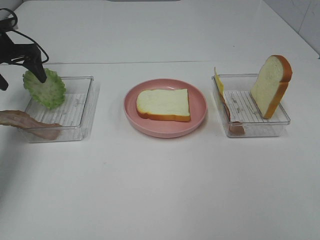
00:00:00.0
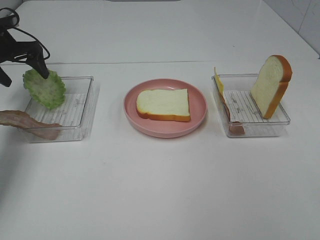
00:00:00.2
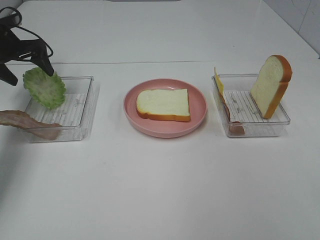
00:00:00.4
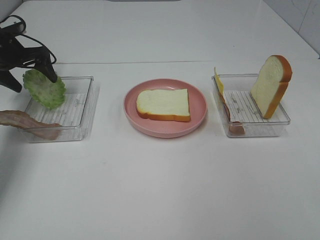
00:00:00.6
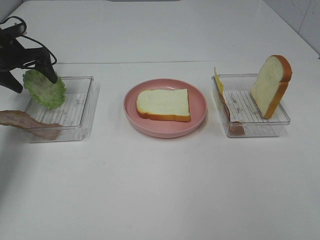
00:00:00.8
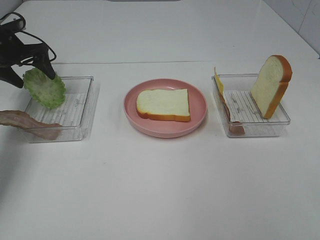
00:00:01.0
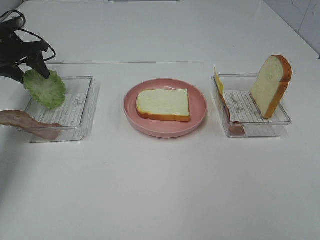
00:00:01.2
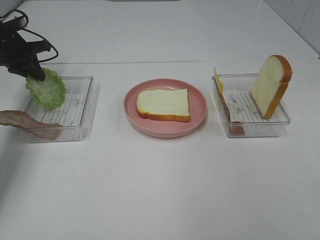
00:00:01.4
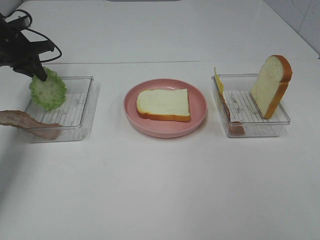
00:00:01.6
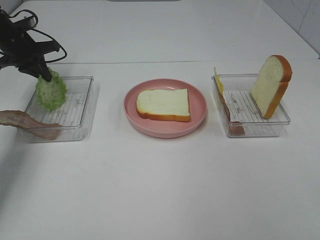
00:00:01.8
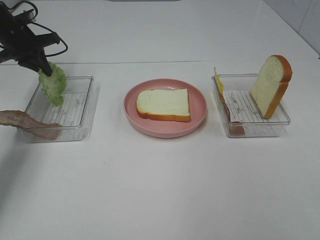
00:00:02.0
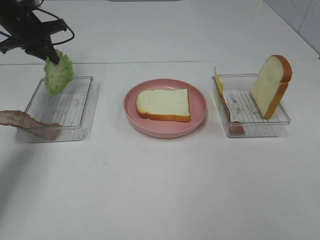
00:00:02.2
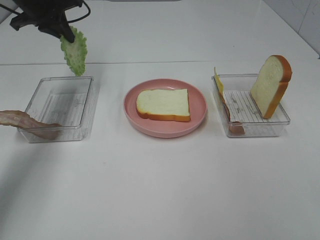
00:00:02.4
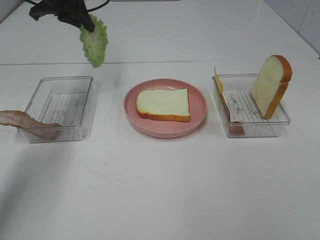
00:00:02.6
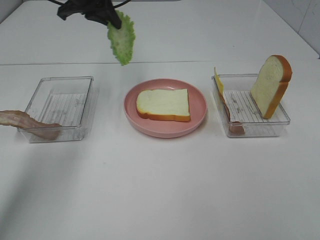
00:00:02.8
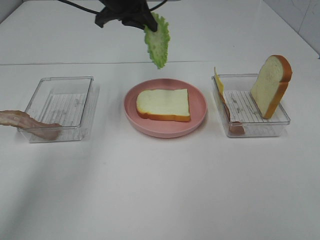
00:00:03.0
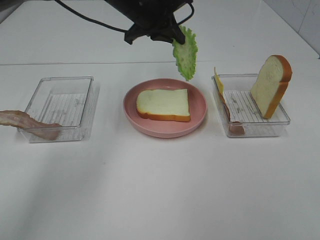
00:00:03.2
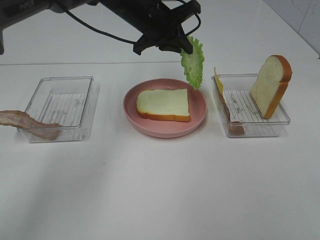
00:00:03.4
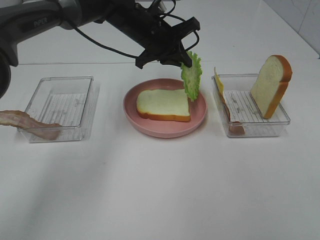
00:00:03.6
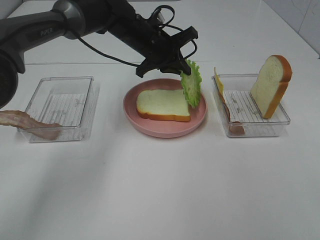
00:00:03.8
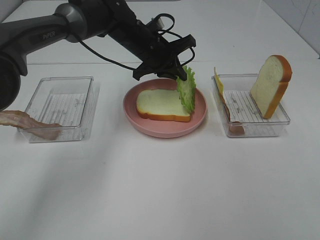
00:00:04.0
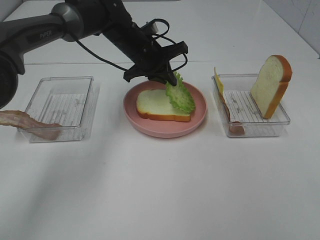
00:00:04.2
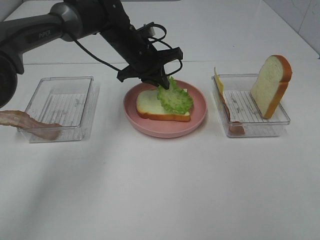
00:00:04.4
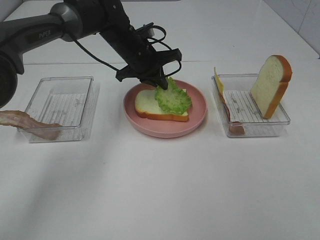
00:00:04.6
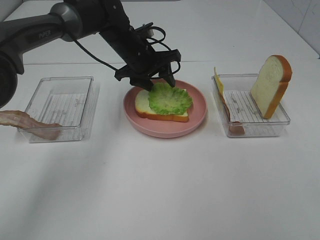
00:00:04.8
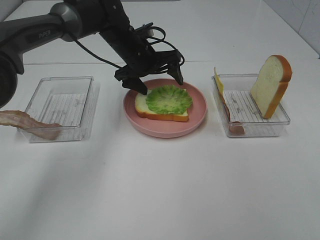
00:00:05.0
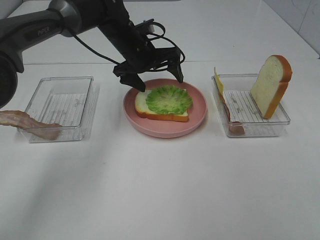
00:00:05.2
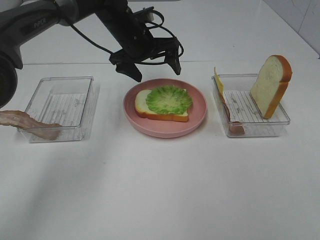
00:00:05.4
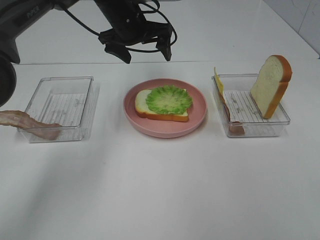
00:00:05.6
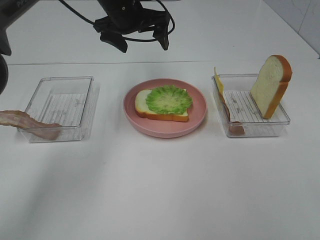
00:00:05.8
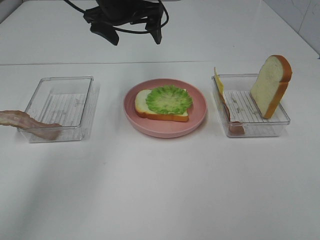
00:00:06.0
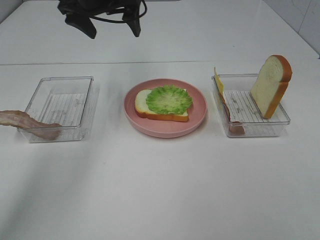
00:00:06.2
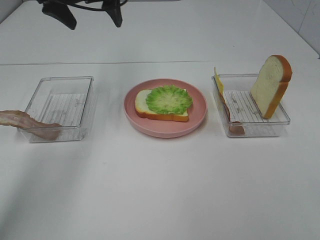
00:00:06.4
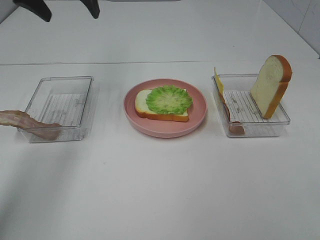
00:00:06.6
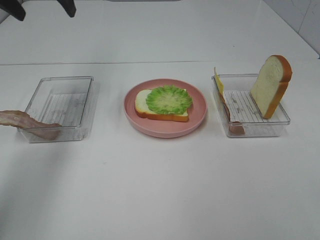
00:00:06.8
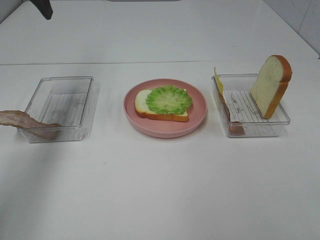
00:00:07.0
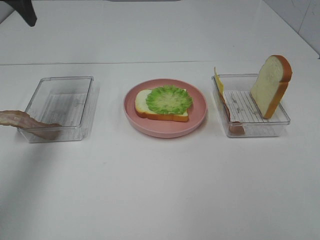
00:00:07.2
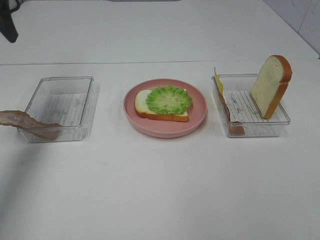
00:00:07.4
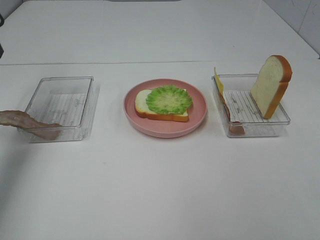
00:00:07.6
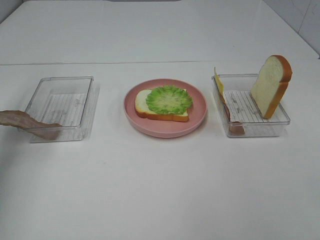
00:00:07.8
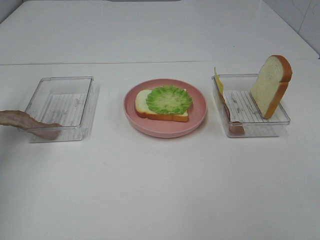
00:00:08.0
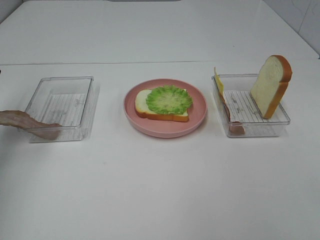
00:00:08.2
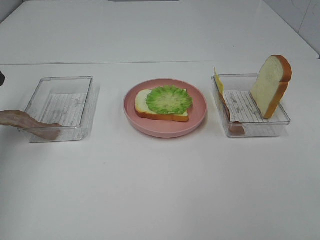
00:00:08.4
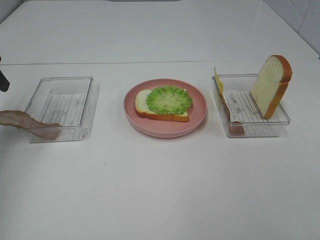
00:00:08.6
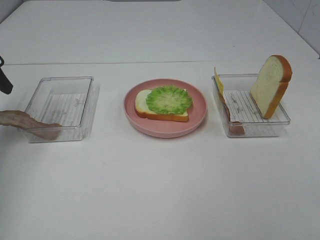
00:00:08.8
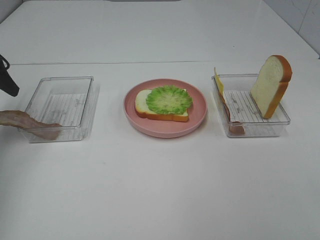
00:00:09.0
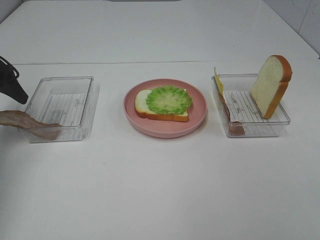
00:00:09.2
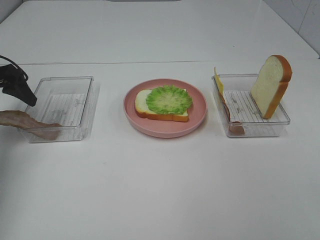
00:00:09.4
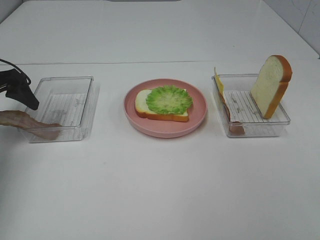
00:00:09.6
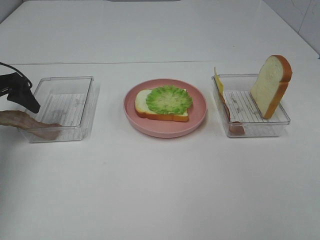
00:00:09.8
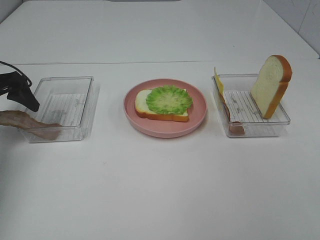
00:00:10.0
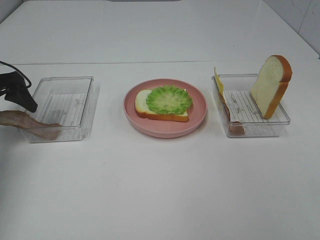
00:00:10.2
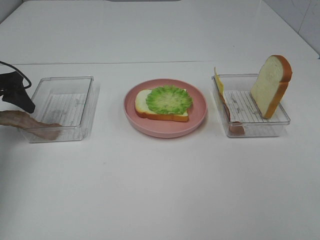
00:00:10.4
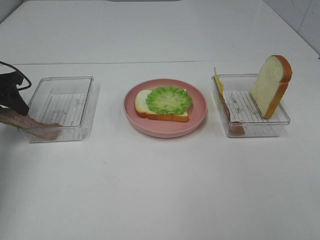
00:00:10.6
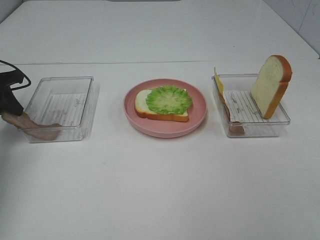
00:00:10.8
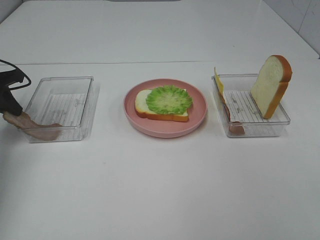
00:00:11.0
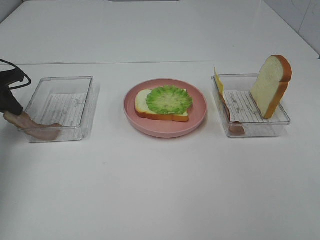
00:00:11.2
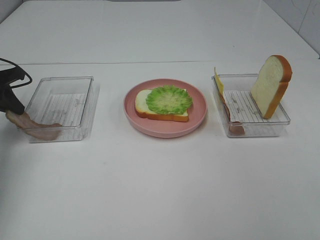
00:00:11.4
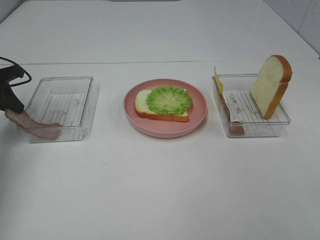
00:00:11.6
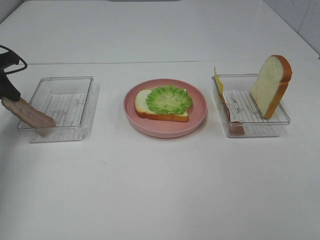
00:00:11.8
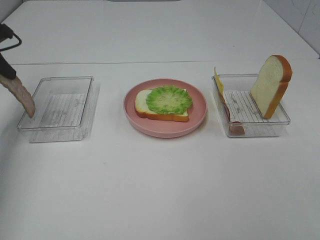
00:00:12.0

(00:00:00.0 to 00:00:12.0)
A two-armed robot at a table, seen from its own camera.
Task of the whole recording: Make sandwiches.
Step, 00:00:01.8 - 00:00:05.0: Left hand:place the lettuce slice on the bread slice.
Step, 00:00:05.2 - 00:00:11.6: Left hand:grab the bacon.
00:00:00.0 - 00:00:01.6: The left gripper closes its fingers.
00:00:01.6 - 00:00:03.0: The left gripper moves to the right and upward, some 25 cm.
00:00:03.0 - 00:00:04.4: The left gripper goes roughly 10 cm downward.
00:00:04.4 - 00:00:06.0: The left gripper moves upward, about 10 cm, and opens its fingers.
00:00:06.0 - 00:00:07.6: The left gripper heads to the left and backward, covering roughly 30 cm.
00:00:07.6 - 00:00:09.0: The left gripper shifts roughly 10 cm downward.
00:00:09.0 - 00:00:10.4: The left gripper ends up approximately 5 cm from where it was.
00:00:10.4 - 00:00:12.0: The left gripper goes roughly 10 cm upward, and closes.

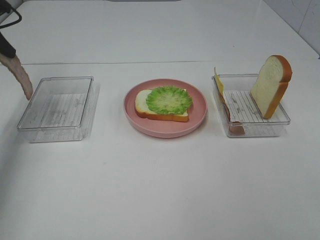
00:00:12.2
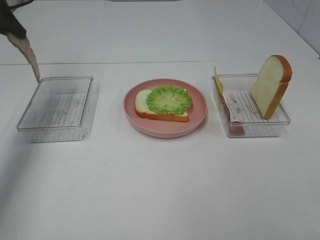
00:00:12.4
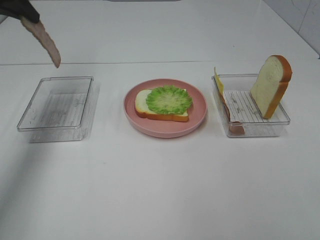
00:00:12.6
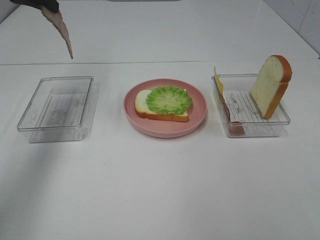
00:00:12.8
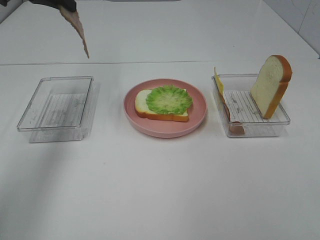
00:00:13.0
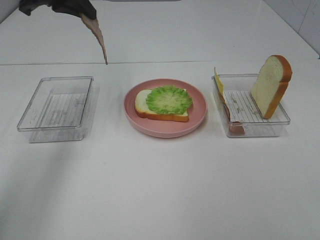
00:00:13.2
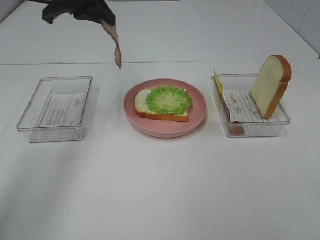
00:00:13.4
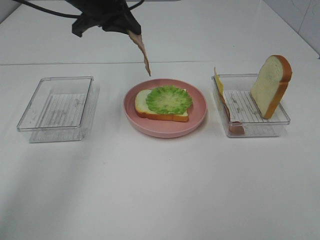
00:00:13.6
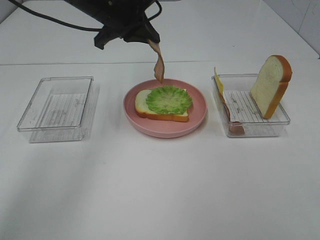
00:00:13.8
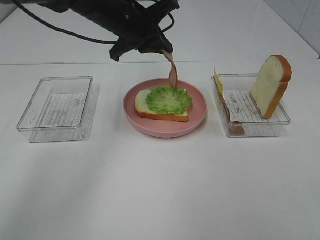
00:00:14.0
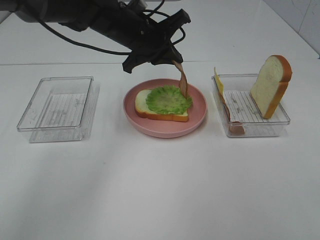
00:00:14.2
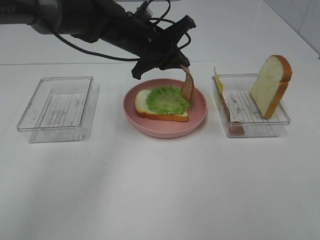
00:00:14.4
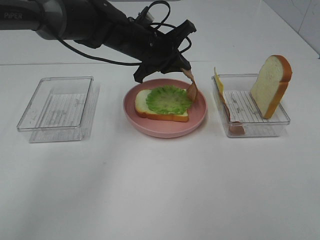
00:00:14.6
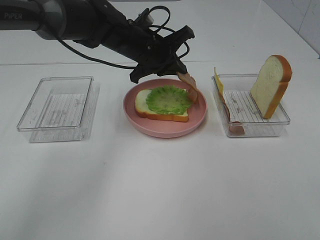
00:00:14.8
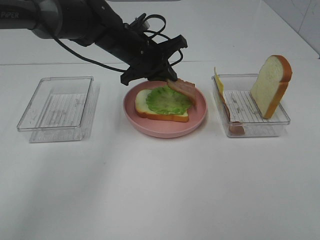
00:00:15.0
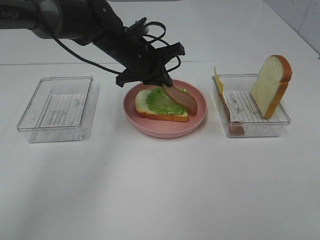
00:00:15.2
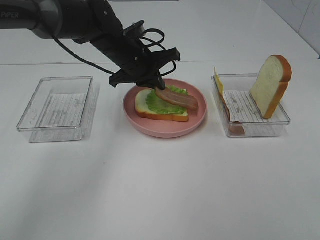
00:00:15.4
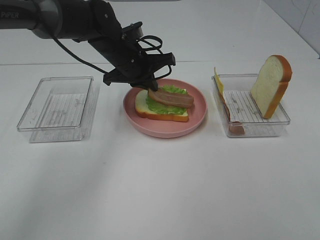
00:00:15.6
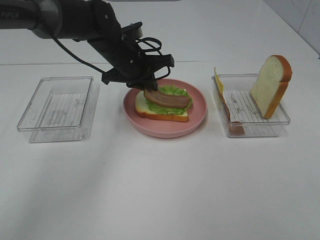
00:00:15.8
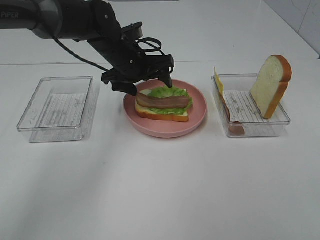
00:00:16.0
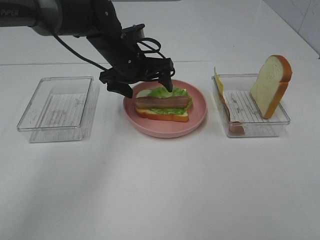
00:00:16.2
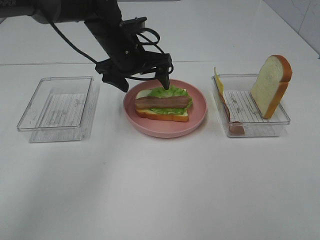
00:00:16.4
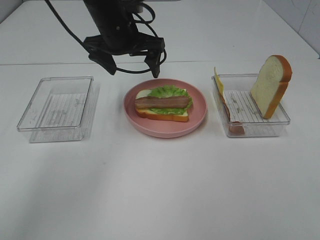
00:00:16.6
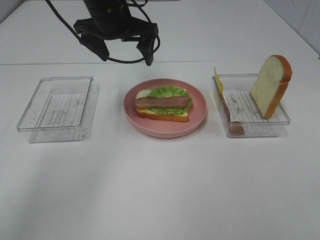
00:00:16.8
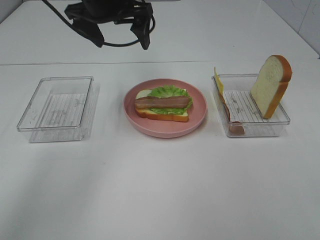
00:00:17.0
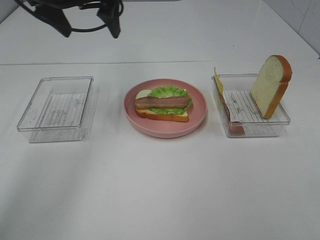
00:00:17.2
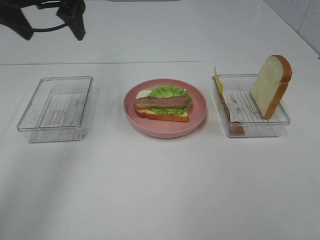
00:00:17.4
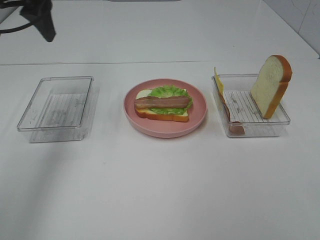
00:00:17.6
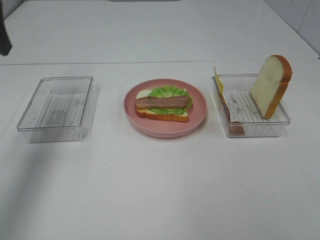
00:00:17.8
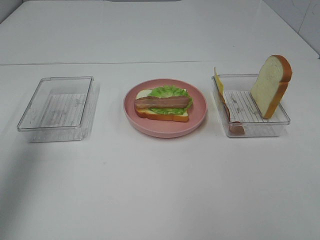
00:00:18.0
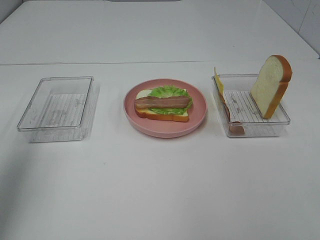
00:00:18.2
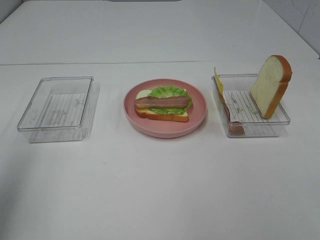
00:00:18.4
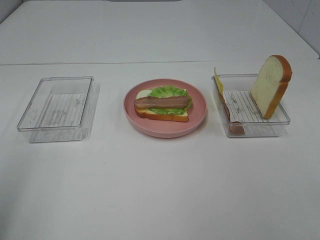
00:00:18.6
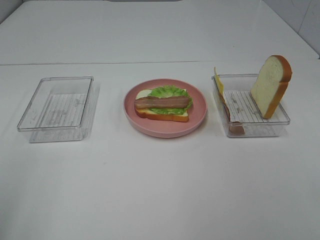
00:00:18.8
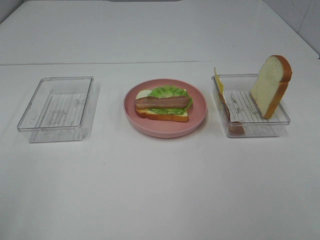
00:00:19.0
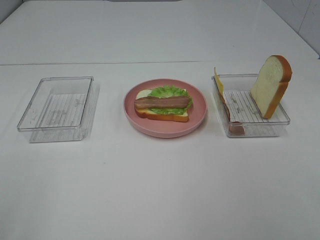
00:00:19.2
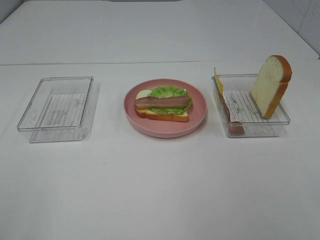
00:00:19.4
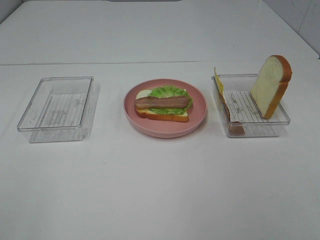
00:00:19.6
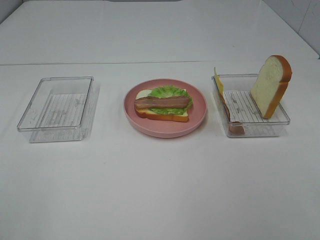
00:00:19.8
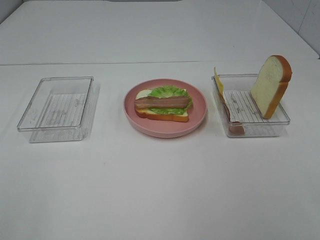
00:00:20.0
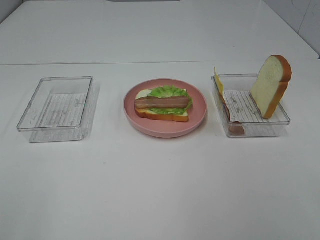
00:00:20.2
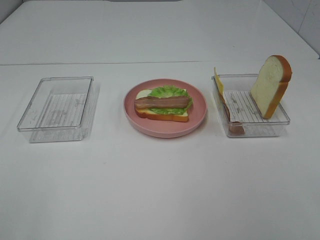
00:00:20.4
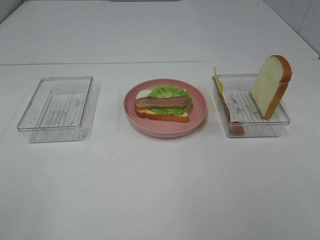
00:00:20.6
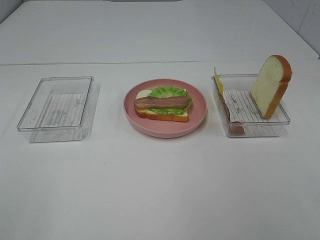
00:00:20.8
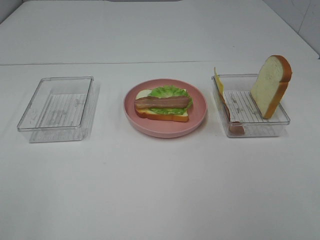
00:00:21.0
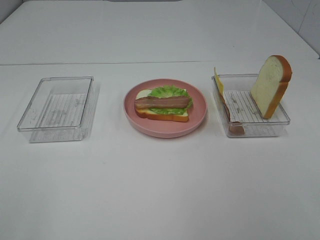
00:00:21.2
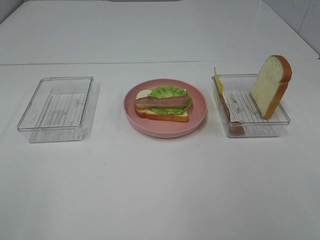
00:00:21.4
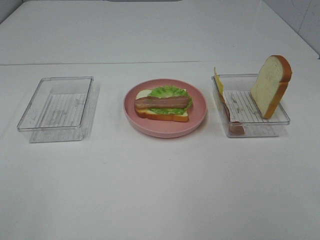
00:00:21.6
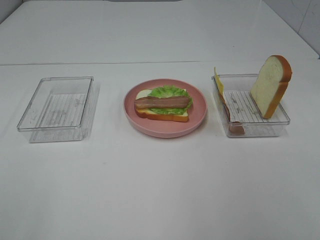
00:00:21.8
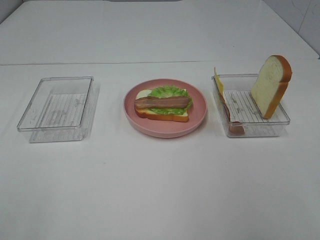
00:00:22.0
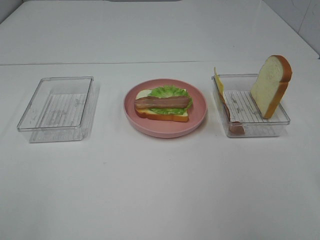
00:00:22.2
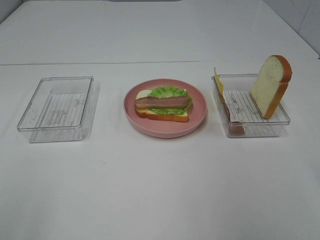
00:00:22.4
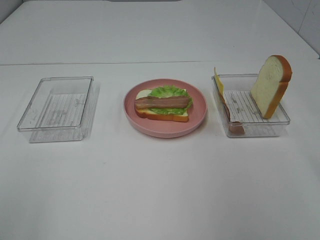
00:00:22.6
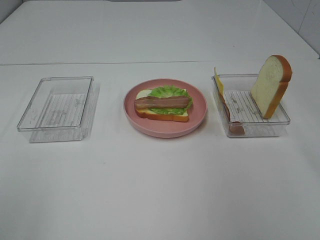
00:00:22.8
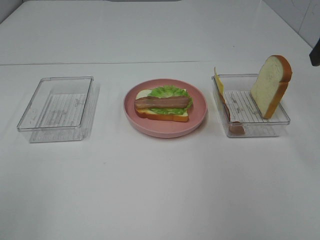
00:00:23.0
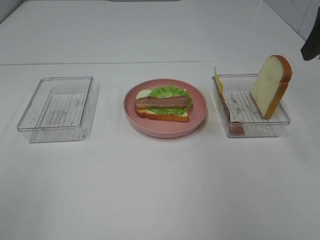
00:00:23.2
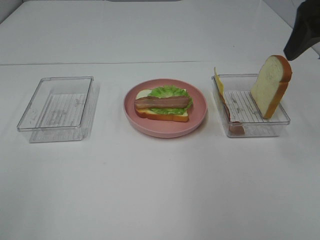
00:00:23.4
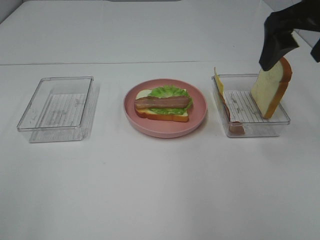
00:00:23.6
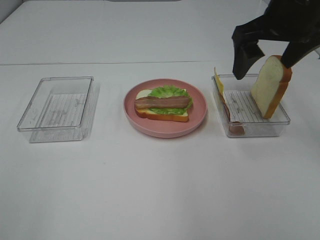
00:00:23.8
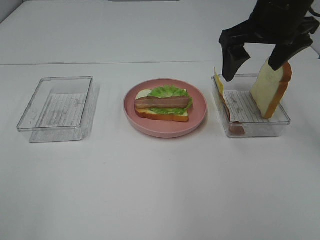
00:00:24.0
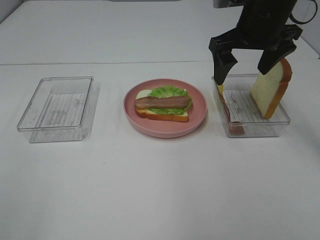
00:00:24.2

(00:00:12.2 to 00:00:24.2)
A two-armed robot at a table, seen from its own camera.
Task of the whole recording: Make sandwiches.
Step, 00:00:12.2 - 00:00:16.0: Left hand:place bacon on lettuce slice.
00:00:12.2 - 00:00:13.8: The left gripper goes roughly 25 cm to the right.
00:00:13.8 - 00:00:15.2: The left gripper is displaced downward by about 10 cm.
00:00:15.2 - 00:00:16.6: The left gripper moves upward, roughly 5 cm, and opens.
00:00:16.6 - 00:00:18.2: The left gripper shifts about 35 cm to the left, backward and upward.
00:00:18.2 - 00:00:19.8: The left gripper is displaced backward by some 20 cm.
00:00:19.8 - 00:00:21.2: Neither gripper changes place.
00:00:22.6 - 00:00:24.2: The right gripper shifts roughly 20 cm forward and to the left.
